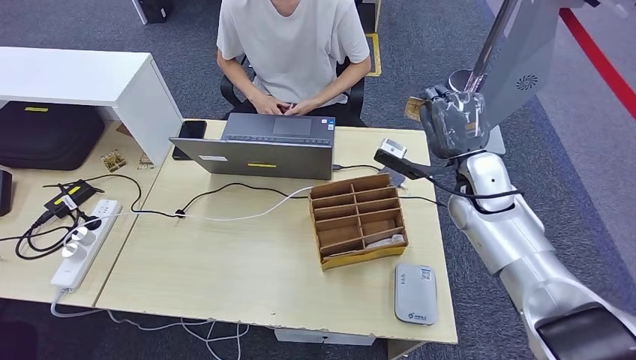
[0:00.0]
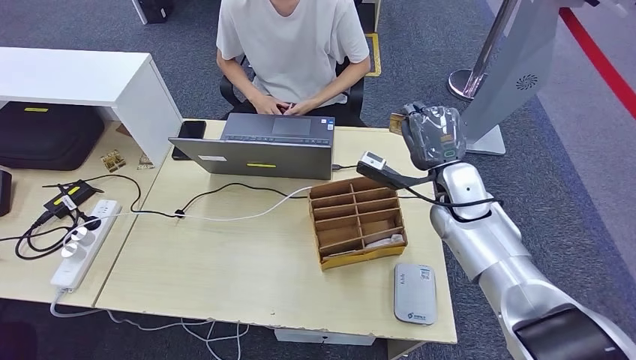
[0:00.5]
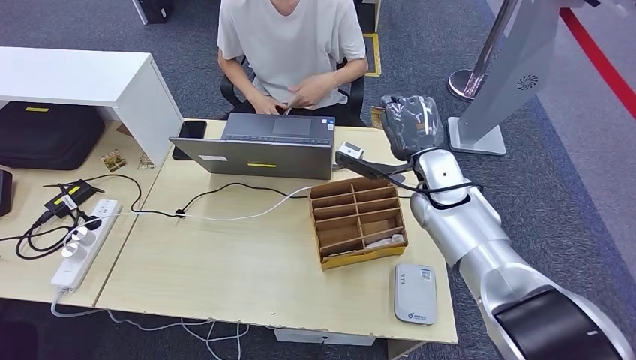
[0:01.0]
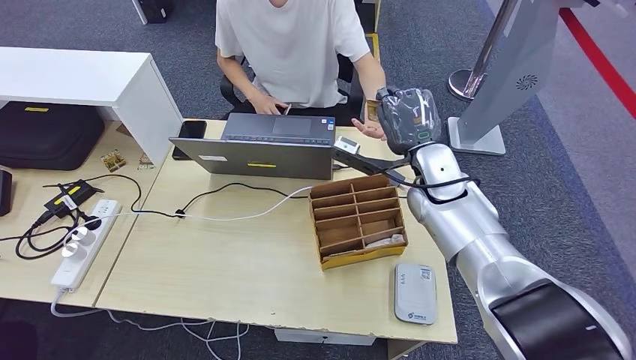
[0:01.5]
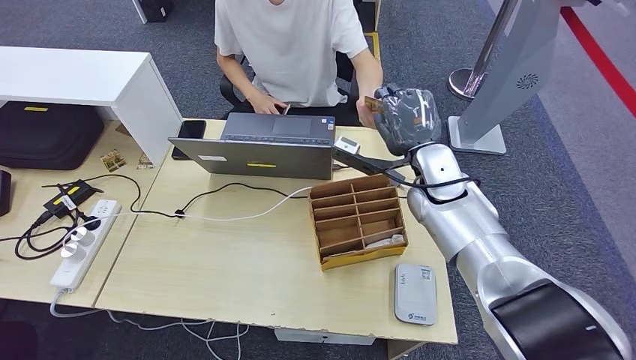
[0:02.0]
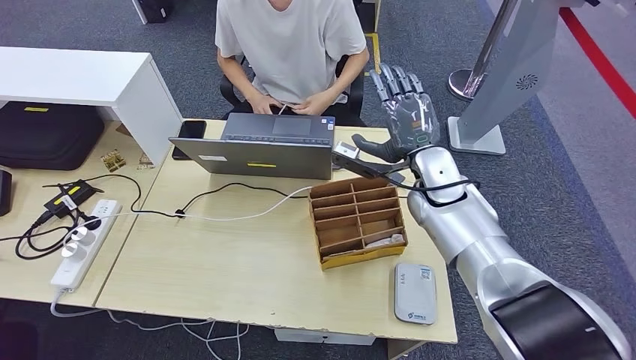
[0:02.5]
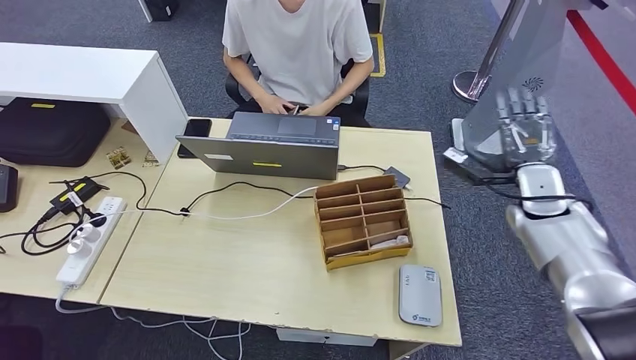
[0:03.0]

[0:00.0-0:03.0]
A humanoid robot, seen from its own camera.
Step, 0:00.0 to 0:03.0: Hand the room key to the person.
0:00.0 to 0:01.5: The right hand is displaced to the left by roughly 5 cm.
